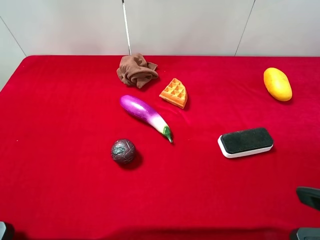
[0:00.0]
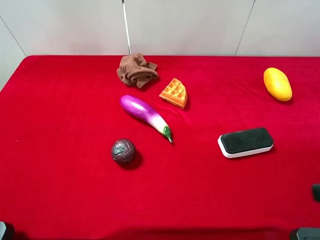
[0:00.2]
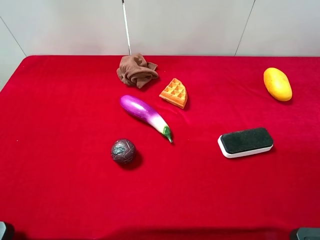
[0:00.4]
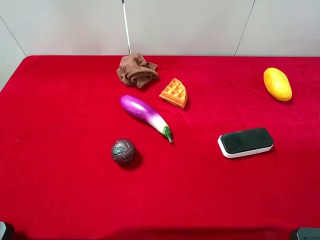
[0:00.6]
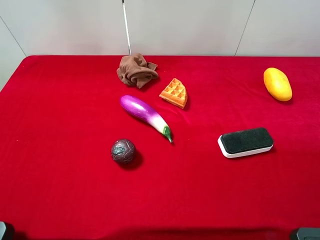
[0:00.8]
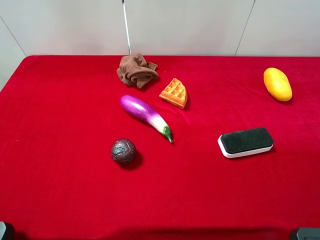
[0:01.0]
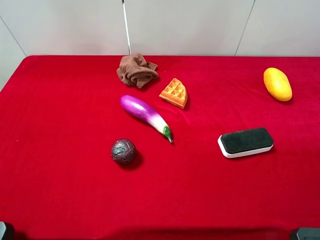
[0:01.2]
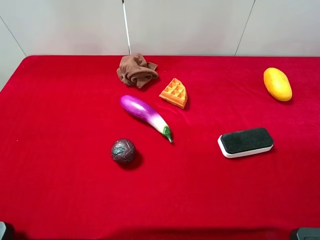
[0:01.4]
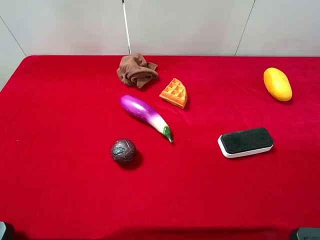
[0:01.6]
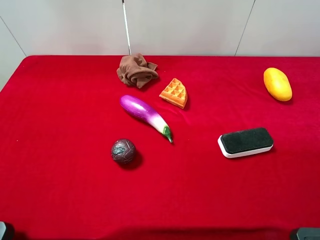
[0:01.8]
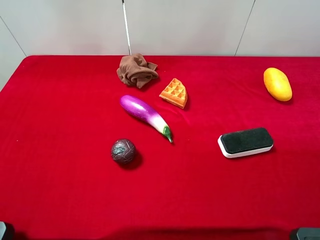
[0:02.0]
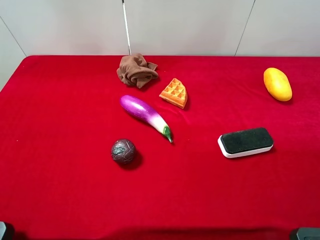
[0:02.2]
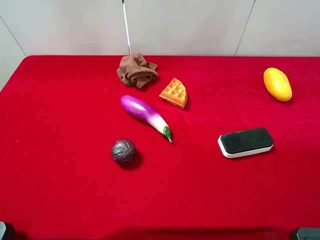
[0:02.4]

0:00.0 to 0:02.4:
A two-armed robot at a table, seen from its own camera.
Task of the whole recording: the gripper move the object.
0:01.2 to 0:02.4: Both grippers stay about where they are.

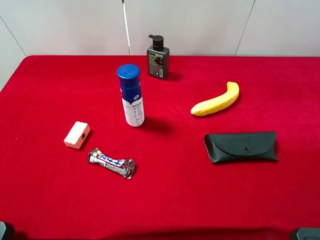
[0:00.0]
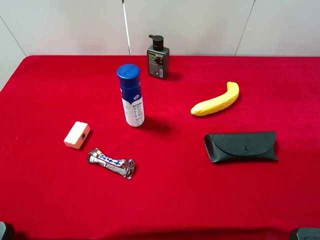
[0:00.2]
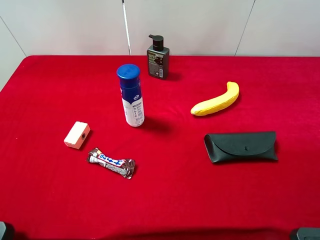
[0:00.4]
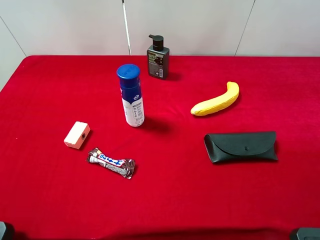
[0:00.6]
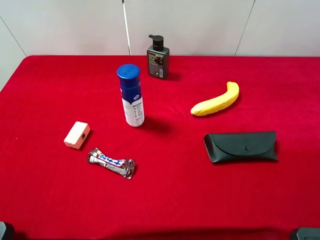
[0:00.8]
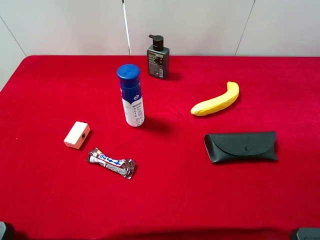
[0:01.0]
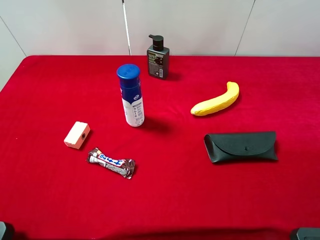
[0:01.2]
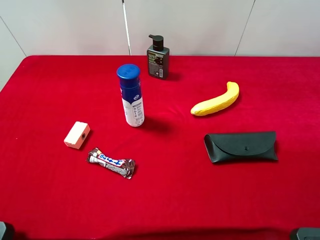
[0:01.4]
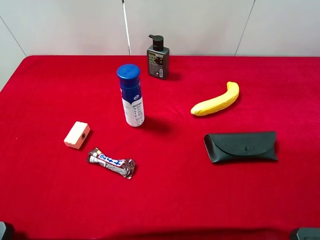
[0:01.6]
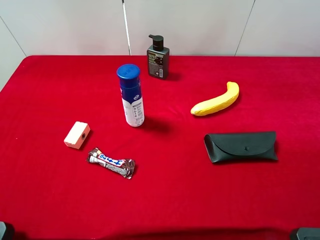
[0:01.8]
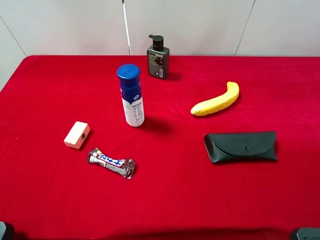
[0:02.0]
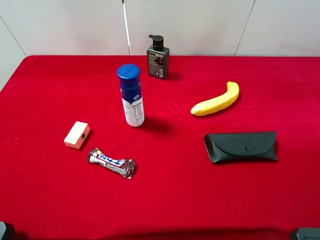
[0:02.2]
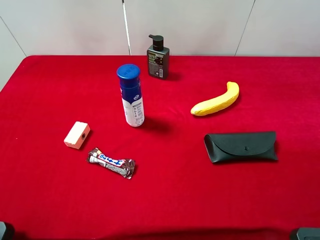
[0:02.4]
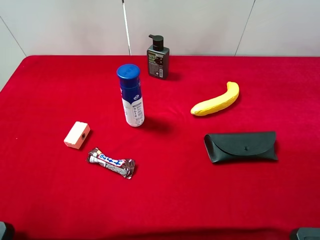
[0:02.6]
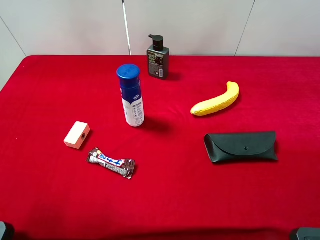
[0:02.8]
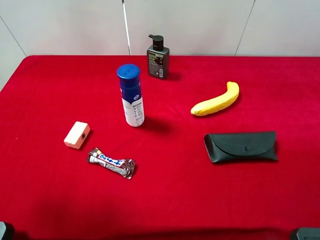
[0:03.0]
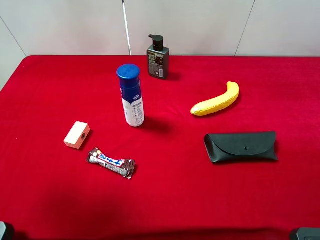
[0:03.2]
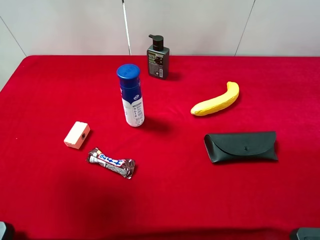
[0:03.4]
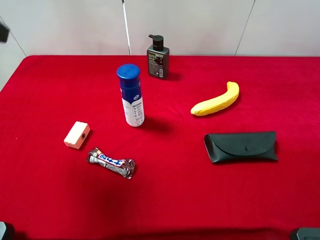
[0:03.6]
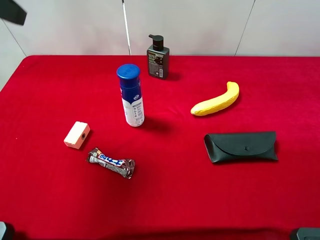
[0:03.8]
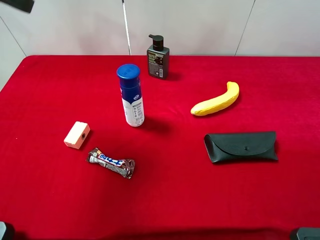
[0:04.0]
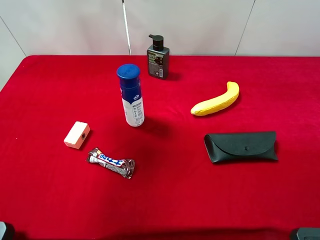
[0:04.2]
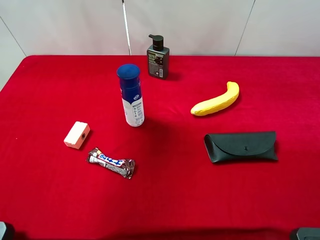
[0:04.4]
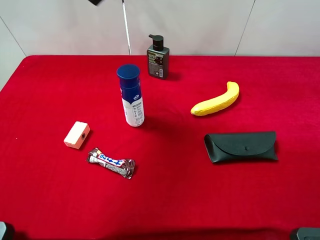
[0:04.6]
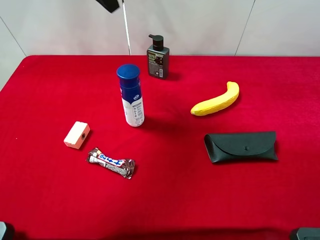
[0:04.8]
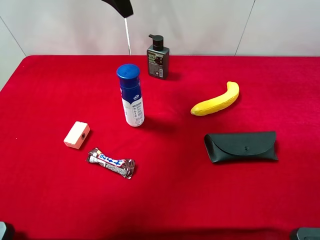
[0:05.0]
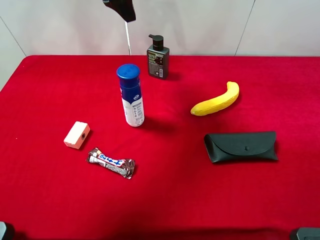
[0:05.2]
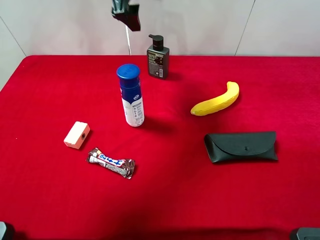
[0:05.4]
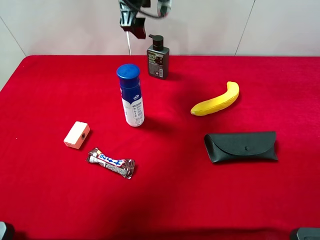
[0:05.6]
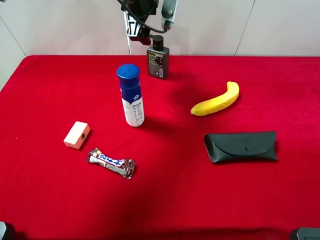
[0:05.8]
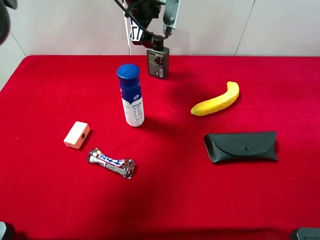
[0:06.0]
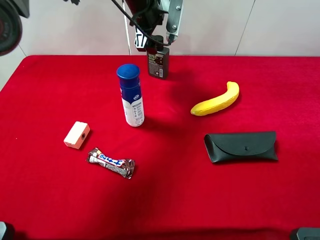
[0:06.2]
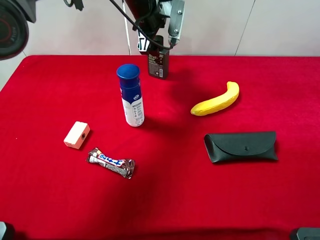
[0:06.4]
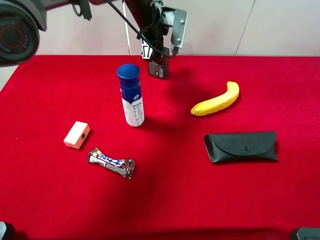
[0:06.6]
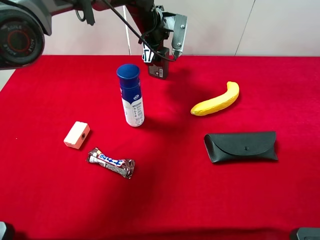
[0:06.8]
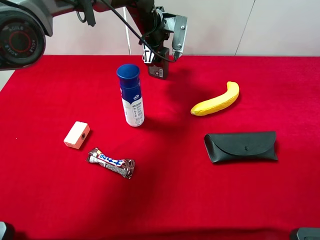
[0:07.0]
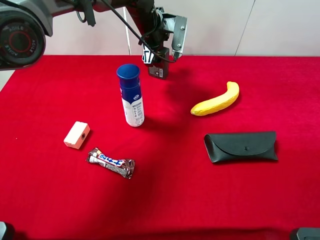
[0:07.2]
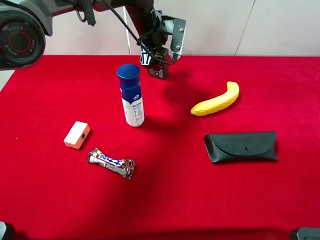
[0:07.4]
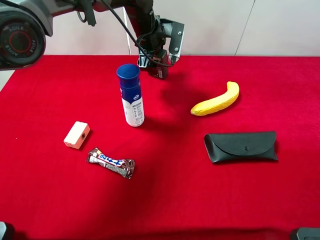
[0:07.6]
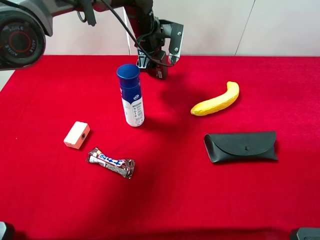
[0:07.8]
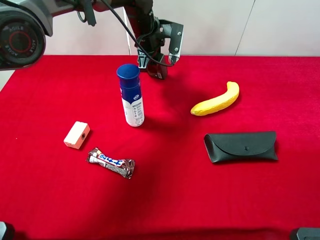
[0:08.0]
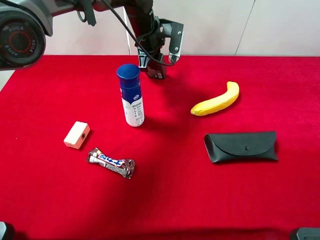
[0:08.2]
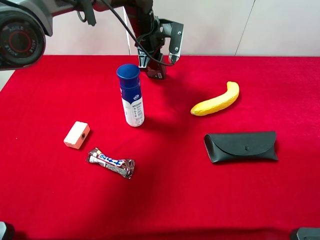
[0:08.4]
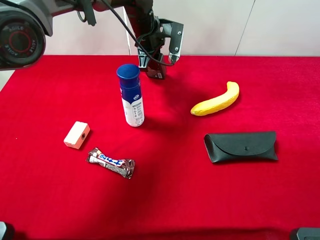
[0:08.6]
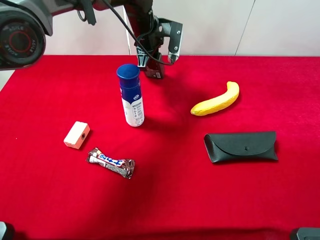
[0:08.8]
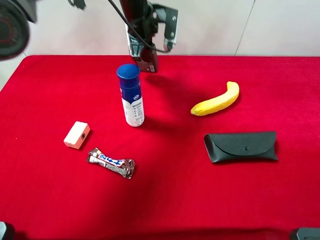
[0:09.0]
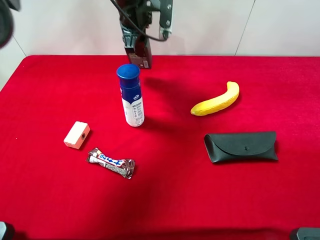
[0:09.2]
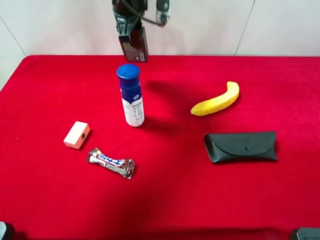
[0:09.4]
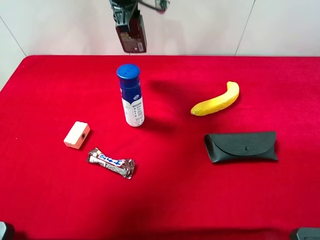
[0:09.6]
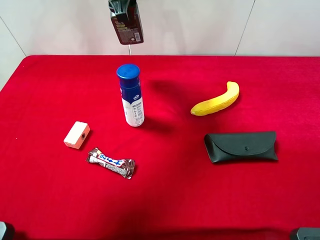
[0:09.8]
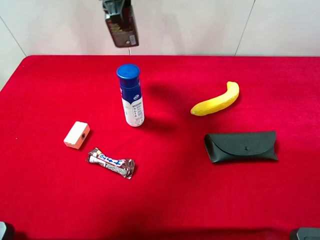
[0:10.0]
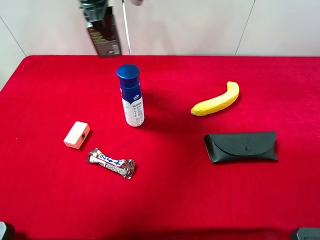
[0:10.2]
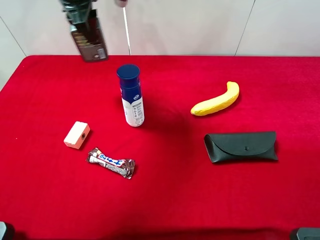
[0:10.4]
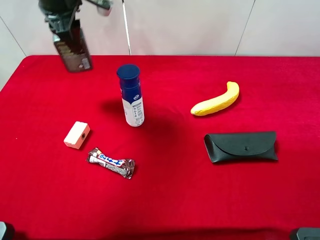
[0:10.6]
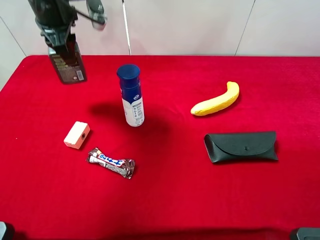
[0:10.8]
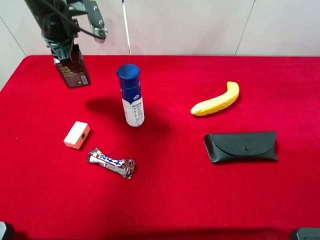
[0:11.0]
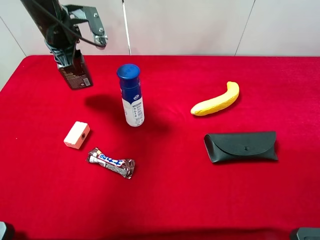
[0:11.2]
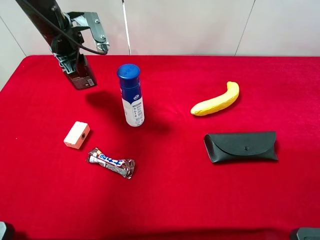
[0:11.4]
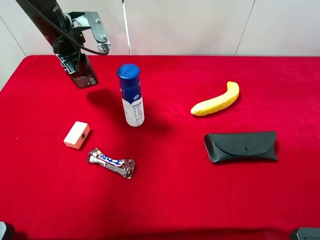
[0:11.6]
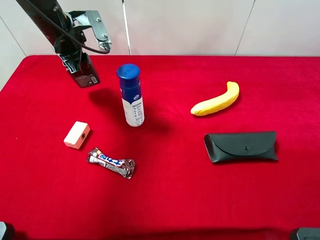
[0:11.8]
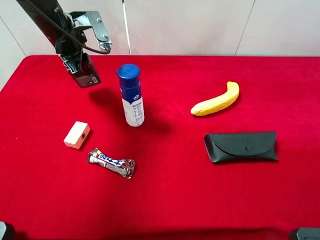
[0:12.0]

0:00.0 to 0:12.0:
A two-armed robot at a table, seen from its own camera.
Task of the whole recording: the gripper move the object.
Step, 0:00.0 to 0:08.0: Grasp the hard facial cleanser with the left gripper.
0:00.0 to 0:01.6: Both grippers stay put.
0:01.6 to 0:03.0: The left gripper is displaced forward and upward by roughly 15 cm.
0:03.0 to 0:04.4: The left gripper goes about 20 cm forward.
0:04.4 to 0:06.0: The left gripper goes some 25 cm to the right, downward and forward.
0:06.0 to 0:07.6: The left gripper shifts about 5 cm downward.
0:07.6 to 0:09.0: The left gripper closes up.
0:09.0 to 0:10.4: The left gripper goes roughly 15 cm to the left, upward and backward.
0:10.4 to 0:12.0: The left gripper shifts some 10 cm downward.

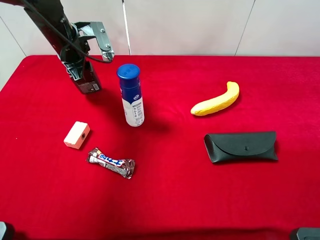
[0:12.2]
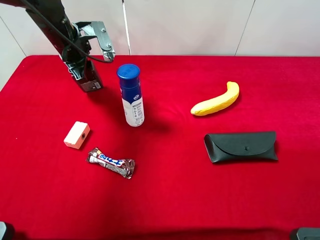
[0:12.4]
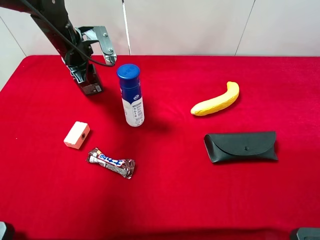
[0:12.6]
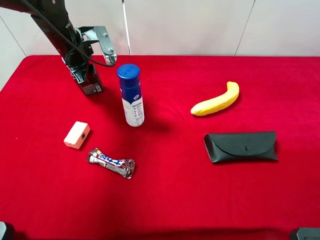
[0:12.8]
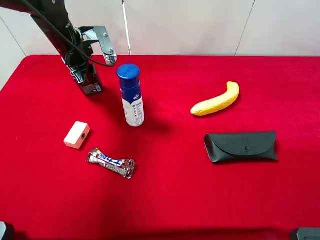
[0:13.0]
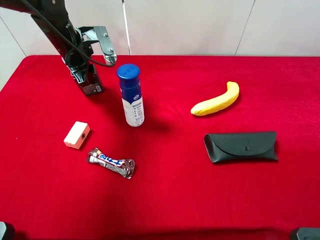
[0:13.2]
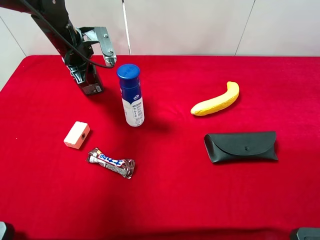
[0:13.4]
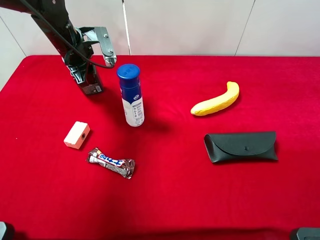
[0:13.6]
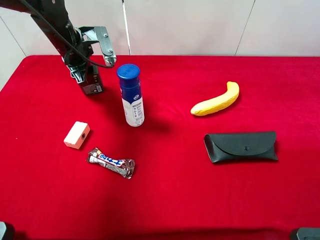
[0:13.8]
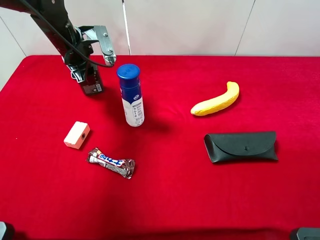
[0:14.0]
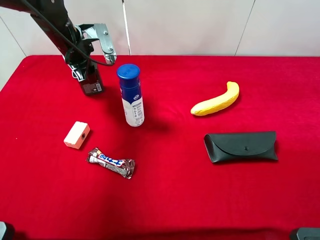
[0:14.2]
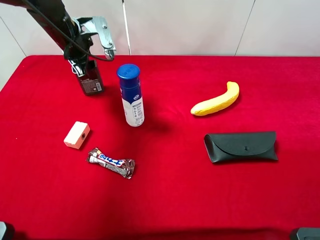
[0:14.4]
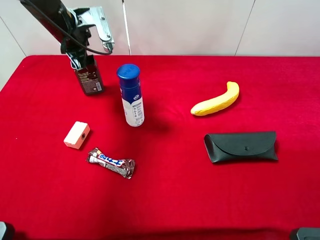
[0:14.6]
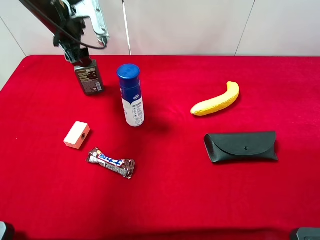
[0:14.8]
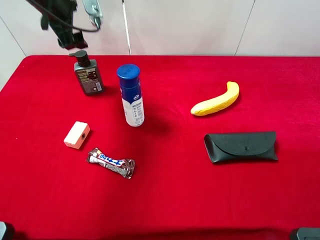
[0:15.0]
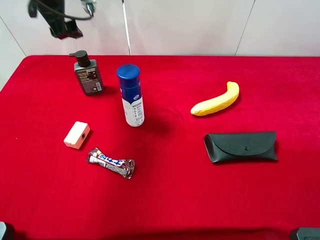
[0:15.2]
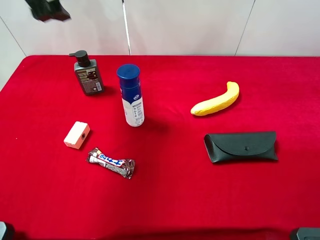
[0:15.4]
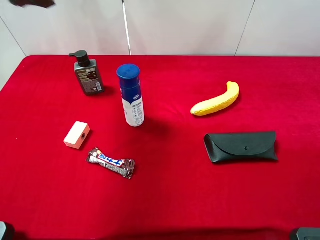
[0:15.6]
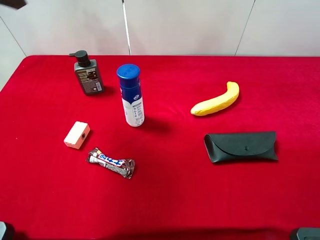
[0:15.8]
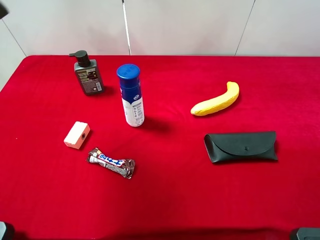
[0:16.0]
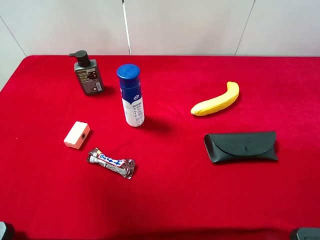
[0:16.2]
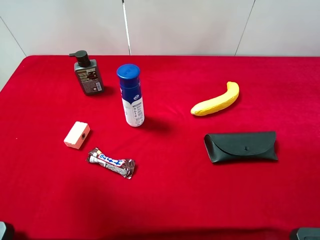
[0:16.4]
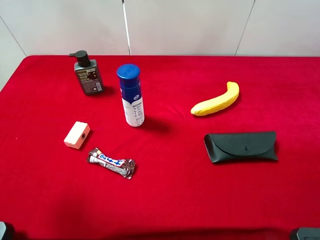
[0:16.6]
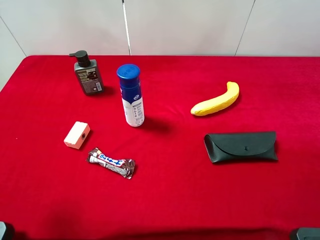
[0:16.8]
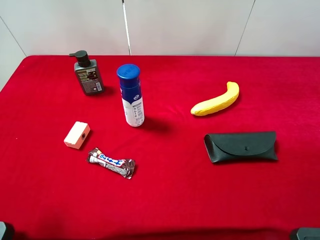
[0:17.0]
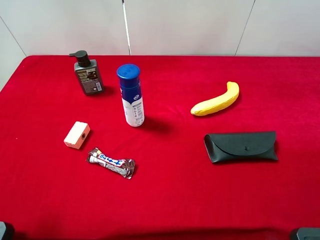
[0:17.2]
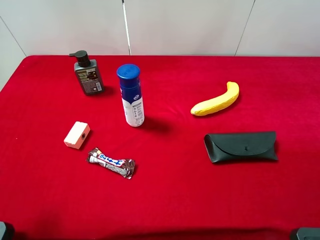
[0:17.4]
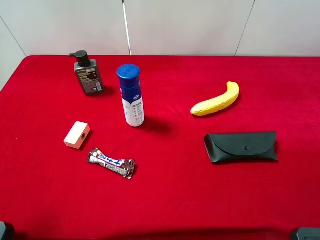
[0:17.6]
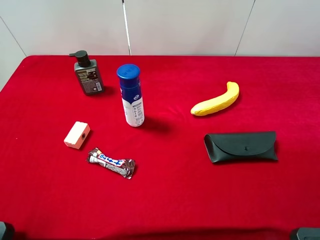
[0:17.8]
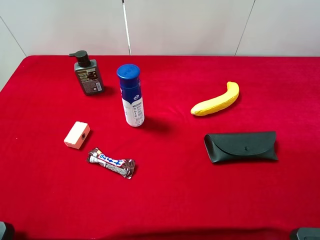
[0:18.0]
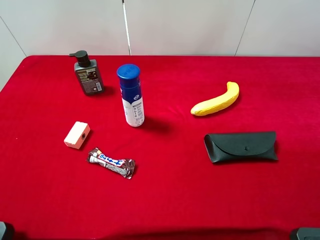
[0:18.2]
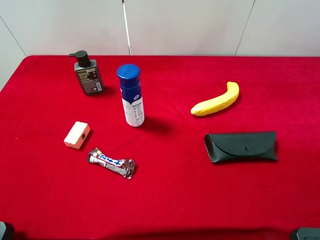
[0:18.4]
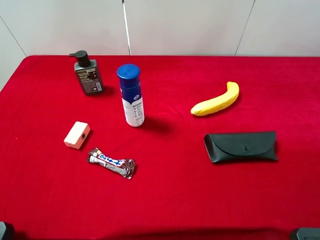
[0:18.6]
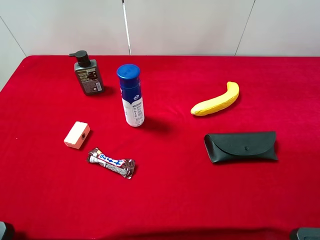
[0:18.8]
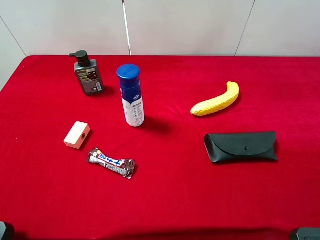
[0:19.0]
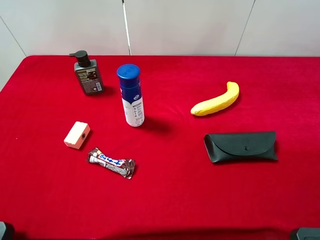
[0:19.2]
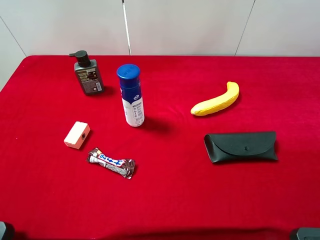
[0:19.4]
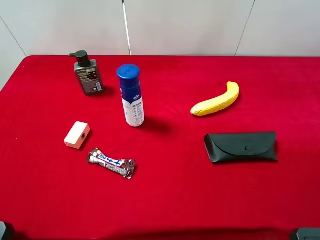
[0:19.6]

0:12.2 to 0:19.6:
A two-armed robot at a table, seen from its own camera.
Task of the whole recording: the gripper move the object.
Step, 0:12.2 to 0:15.0: Place the hard facial cleanser on the table with the left gripper.
0:12.2 to 0:13.6: The two grippers keep their place.
0:13.6 to 0:15.2: The left gripper travels upward by some 15 cm, and opens.
0:15.2 to 0:16.6: The left gripper is displaced backward by approximately 30 cm.
0:18.2 to 0:19.6: The two grippers keep their place.
